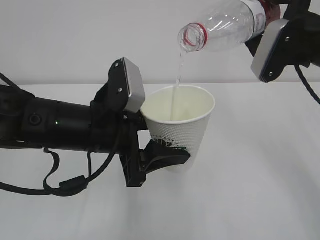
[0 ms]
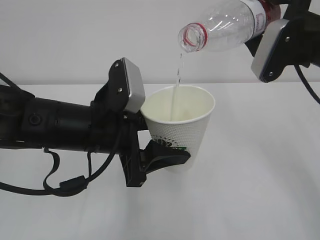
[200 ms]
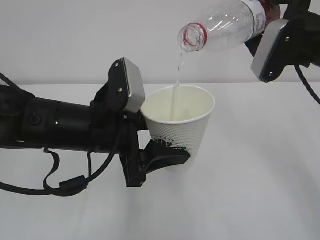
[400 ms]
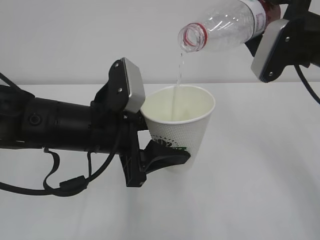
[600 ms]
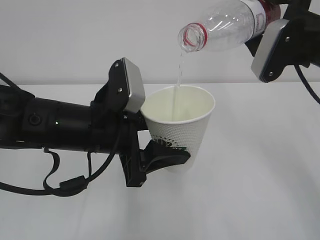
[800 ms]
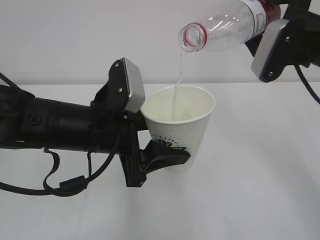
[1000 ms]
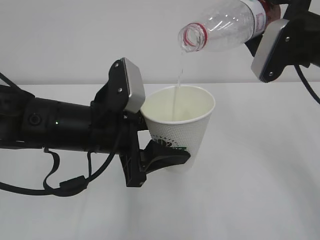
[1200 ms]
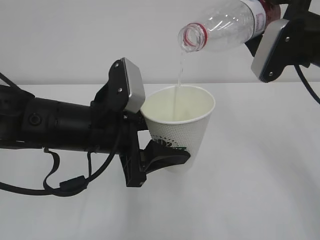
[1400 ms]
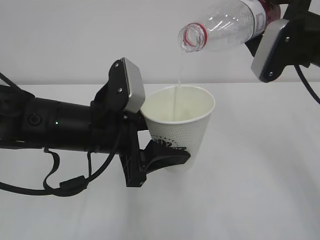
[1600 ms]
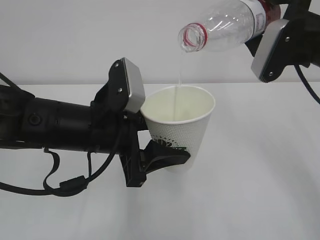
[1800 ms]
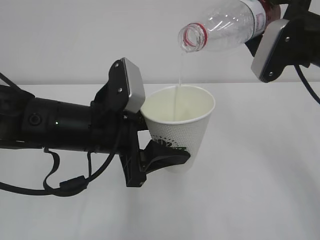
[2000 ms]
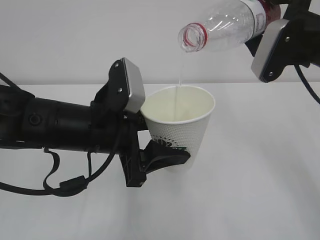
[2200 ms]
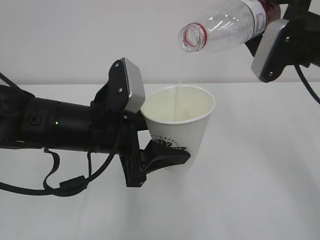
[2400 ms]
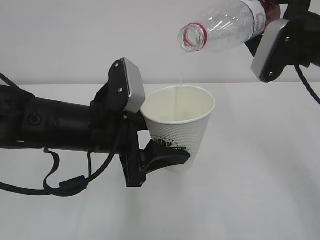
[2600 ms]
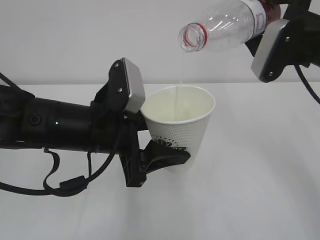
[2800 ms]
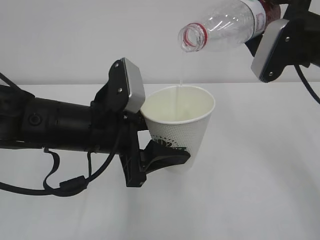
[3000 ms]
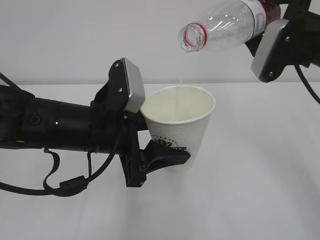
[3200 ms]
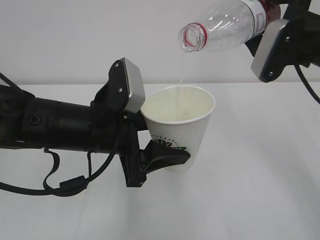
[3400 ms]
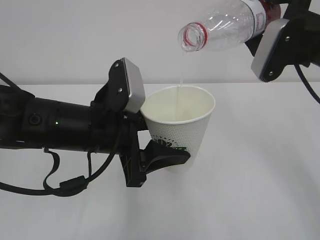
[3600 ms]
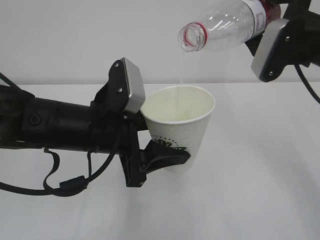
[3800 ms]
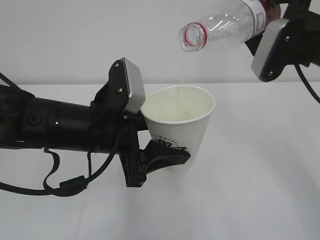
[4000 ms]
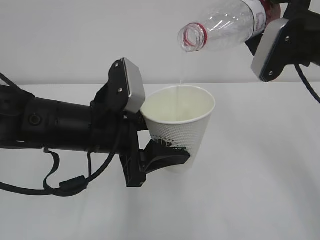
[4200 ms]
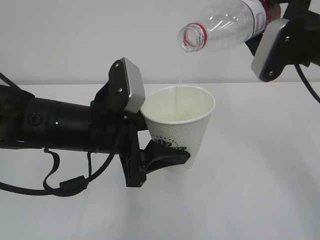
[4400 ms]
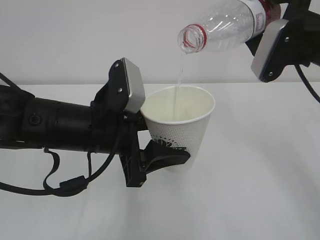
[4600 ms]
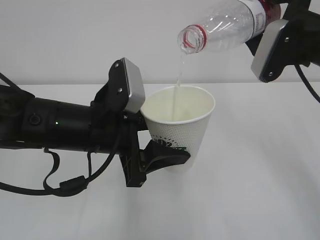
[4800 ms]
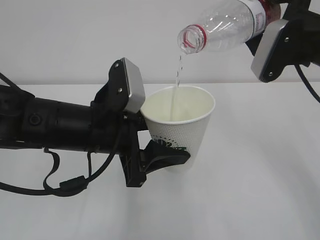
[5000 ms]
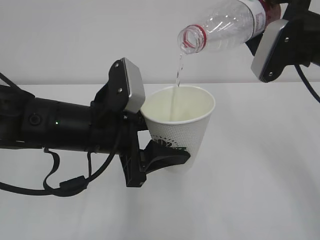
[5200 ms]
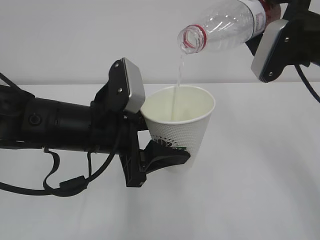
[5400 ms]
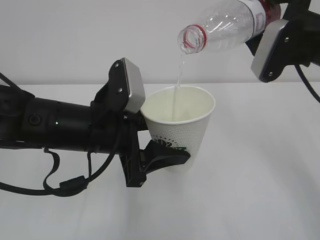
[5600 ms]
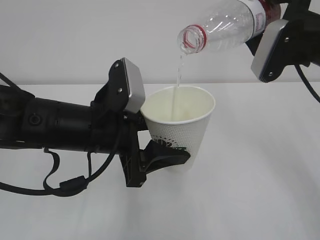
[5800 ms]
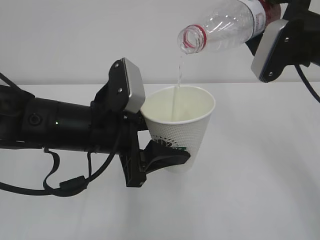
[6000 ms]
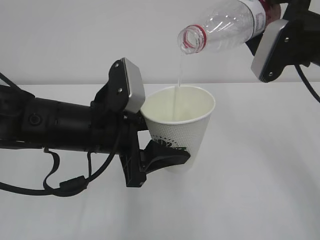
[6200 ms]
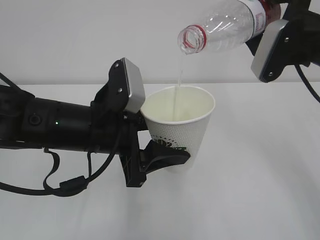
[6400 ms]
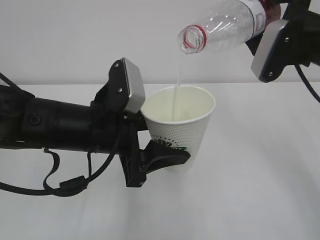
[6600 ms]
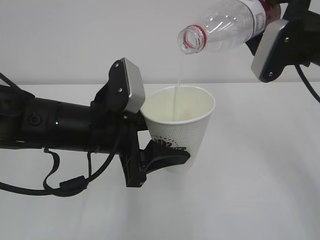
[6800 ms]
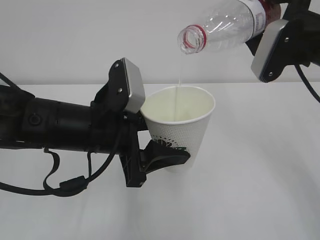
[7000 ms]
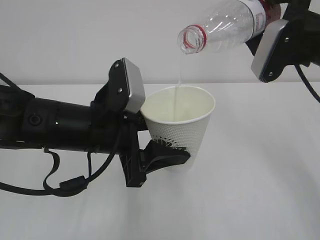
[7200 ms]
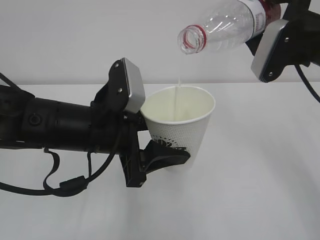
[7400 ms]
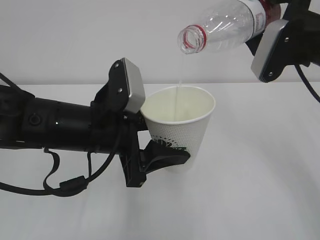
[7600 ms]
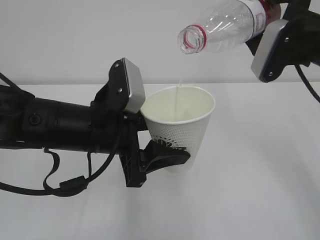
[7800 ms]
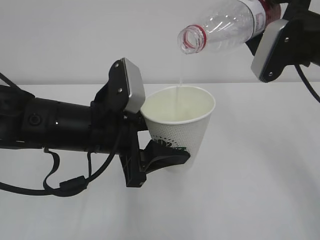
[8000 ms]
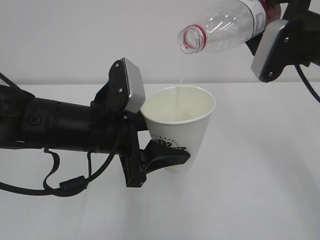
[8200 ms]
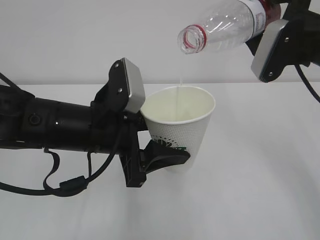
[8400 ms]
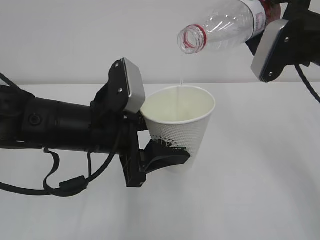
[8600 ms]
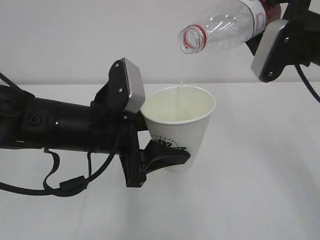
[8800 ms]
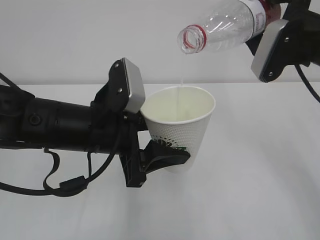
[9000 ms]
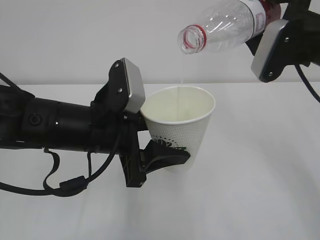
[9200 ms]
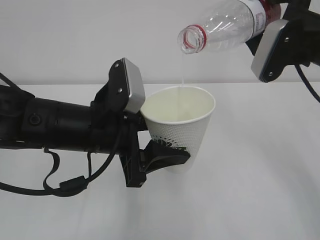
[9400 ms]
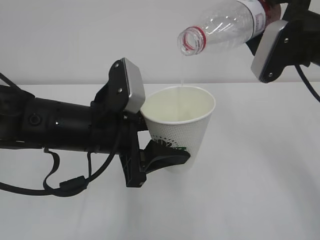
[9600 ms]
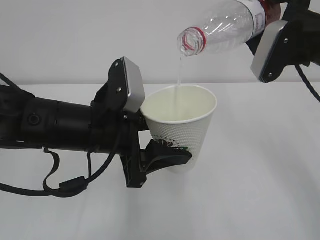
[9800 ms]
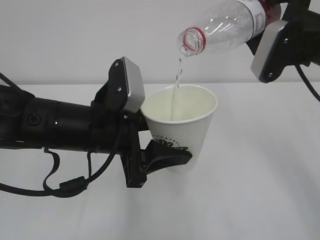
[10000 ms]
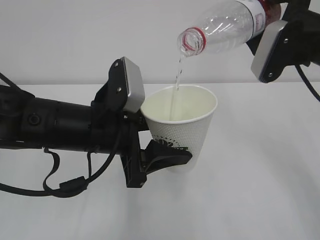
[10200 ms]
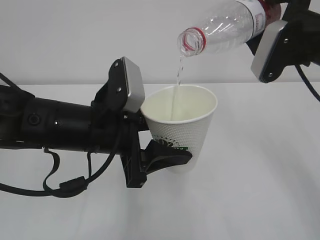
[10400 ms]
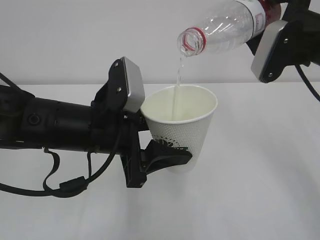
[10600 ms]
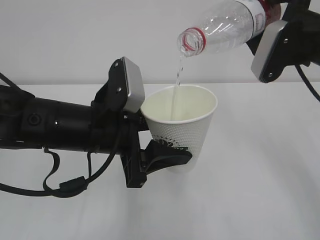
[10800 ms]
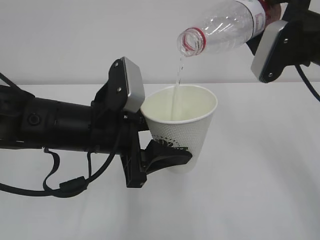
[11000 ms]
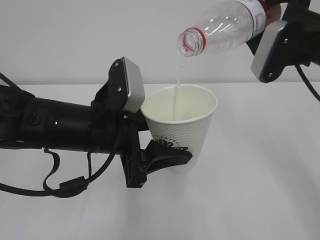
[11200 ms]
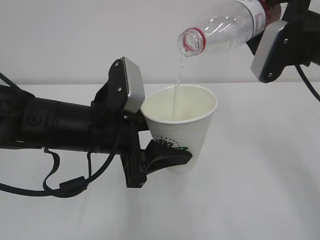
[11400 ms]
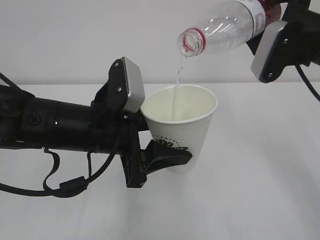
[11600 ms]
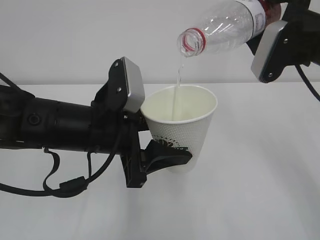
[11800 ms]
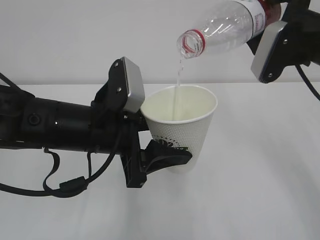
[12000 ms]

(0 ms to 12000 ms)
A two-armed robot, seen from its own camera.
0 ms - 12000 ms: Both grippers stay about where they are.

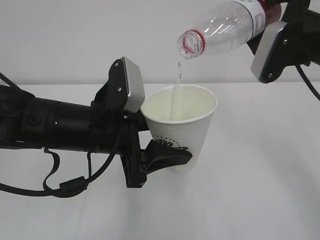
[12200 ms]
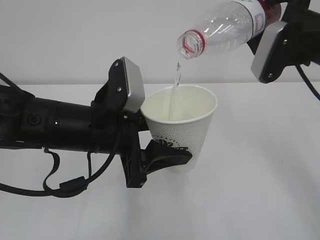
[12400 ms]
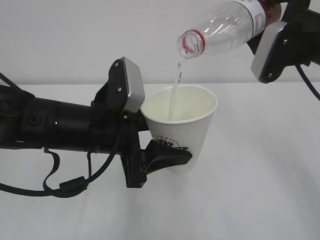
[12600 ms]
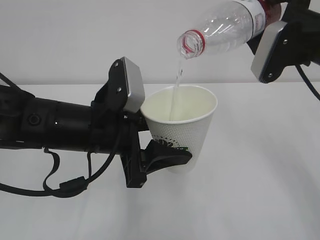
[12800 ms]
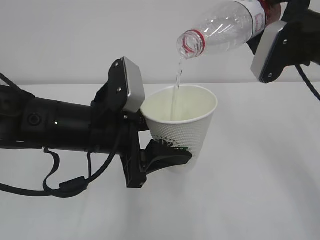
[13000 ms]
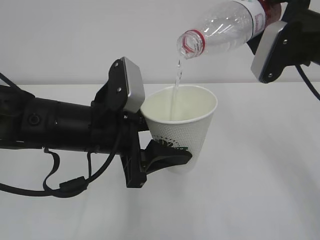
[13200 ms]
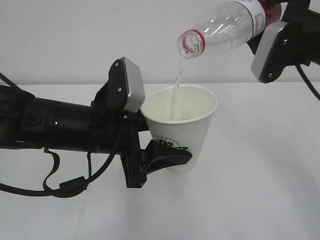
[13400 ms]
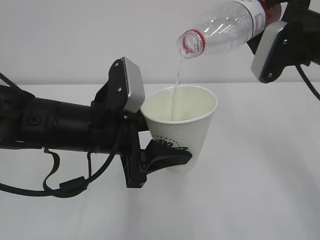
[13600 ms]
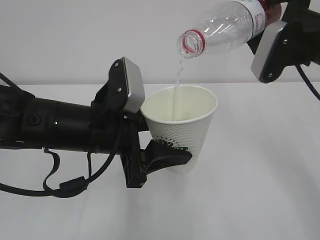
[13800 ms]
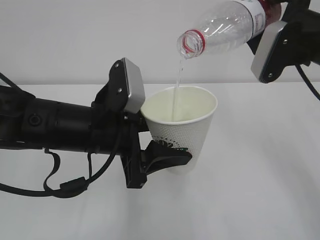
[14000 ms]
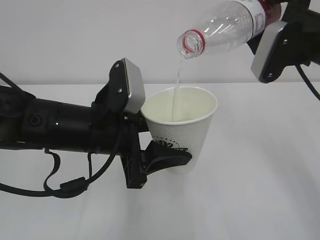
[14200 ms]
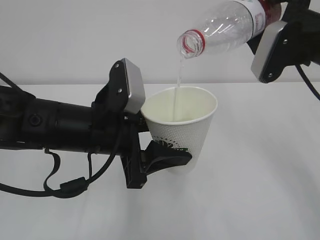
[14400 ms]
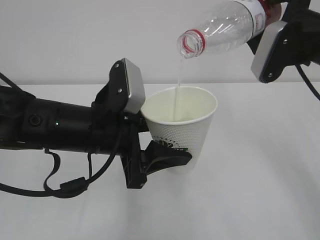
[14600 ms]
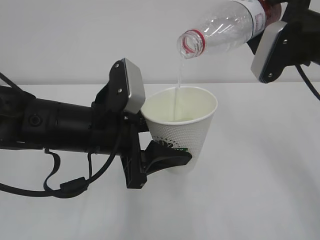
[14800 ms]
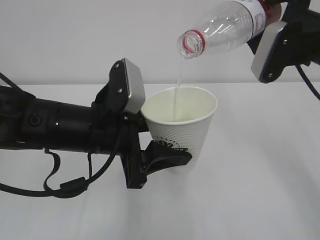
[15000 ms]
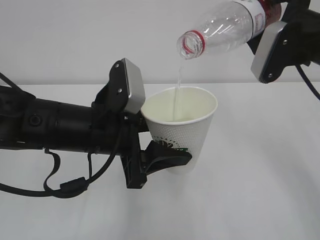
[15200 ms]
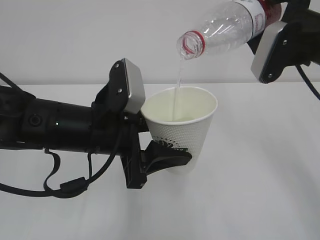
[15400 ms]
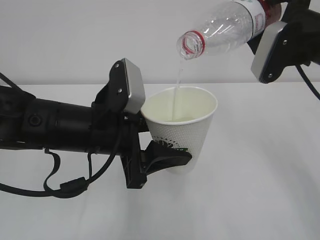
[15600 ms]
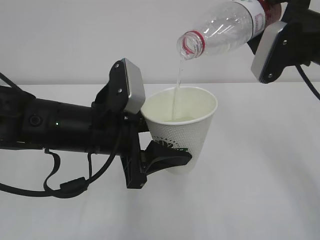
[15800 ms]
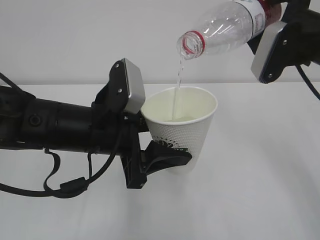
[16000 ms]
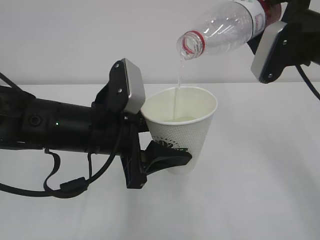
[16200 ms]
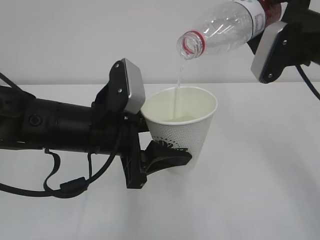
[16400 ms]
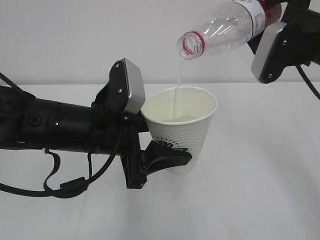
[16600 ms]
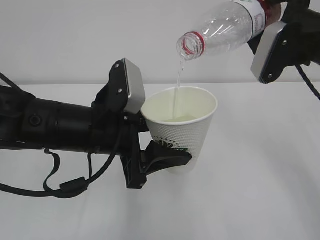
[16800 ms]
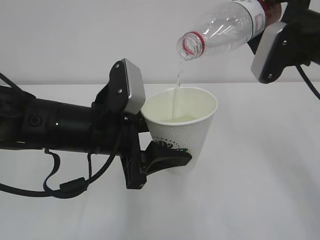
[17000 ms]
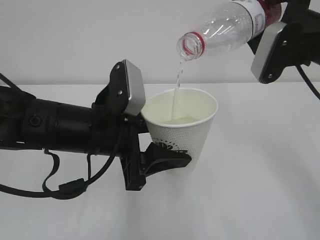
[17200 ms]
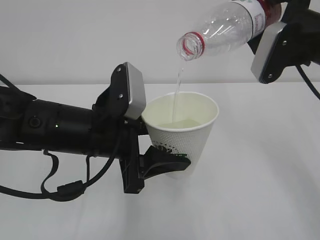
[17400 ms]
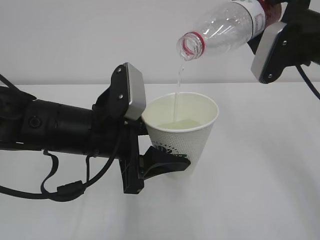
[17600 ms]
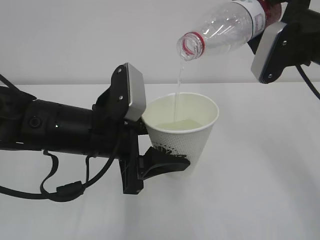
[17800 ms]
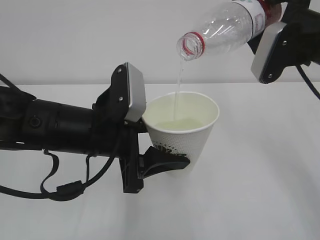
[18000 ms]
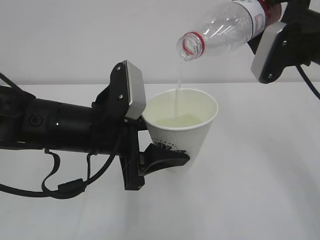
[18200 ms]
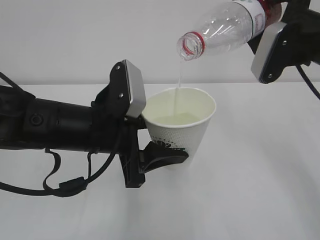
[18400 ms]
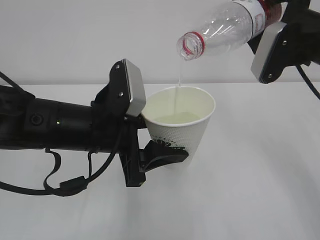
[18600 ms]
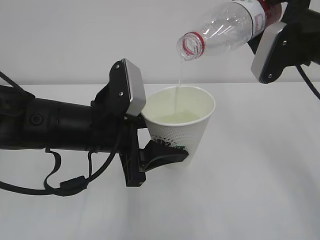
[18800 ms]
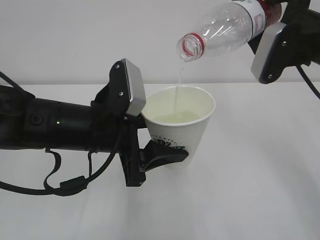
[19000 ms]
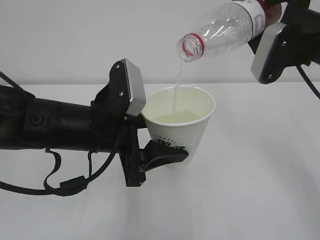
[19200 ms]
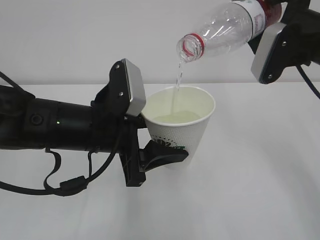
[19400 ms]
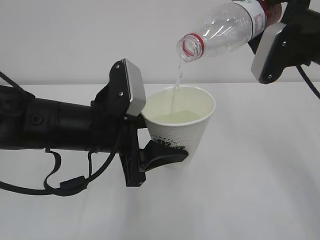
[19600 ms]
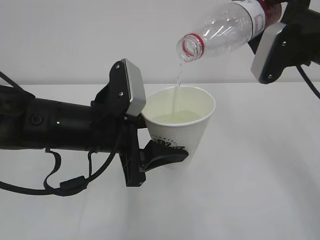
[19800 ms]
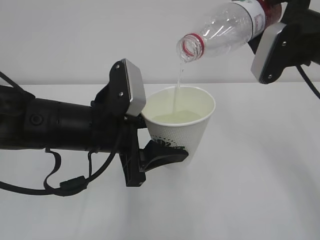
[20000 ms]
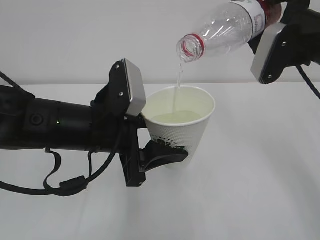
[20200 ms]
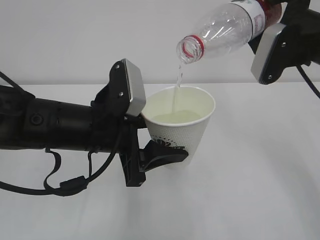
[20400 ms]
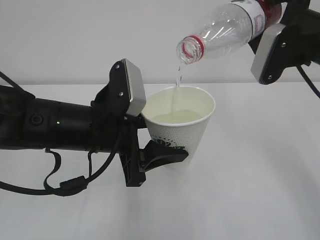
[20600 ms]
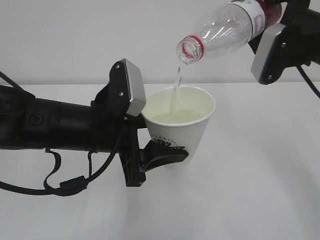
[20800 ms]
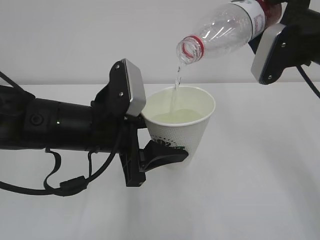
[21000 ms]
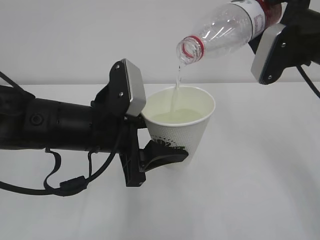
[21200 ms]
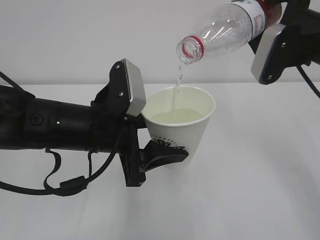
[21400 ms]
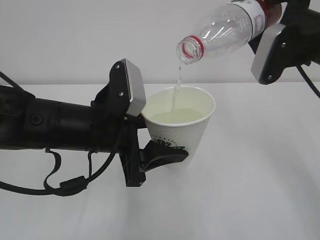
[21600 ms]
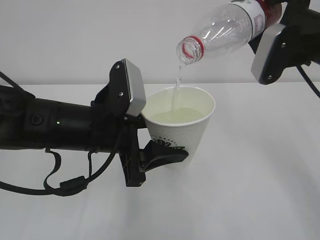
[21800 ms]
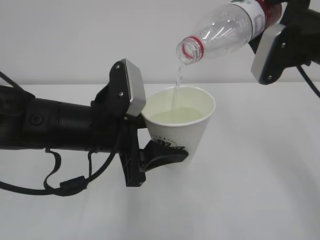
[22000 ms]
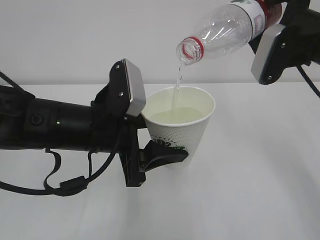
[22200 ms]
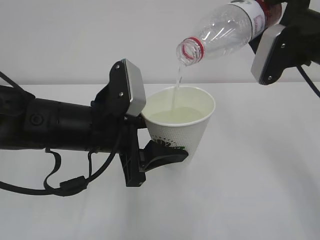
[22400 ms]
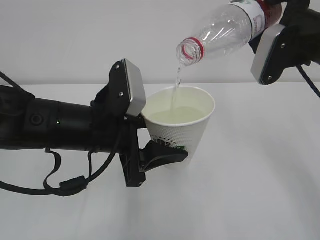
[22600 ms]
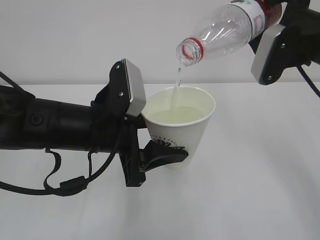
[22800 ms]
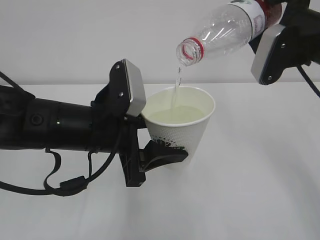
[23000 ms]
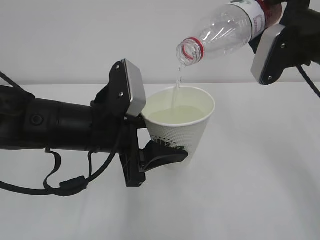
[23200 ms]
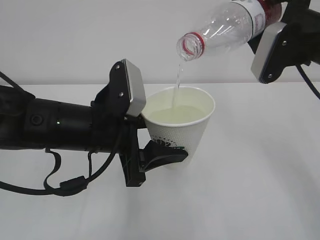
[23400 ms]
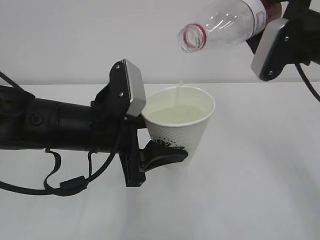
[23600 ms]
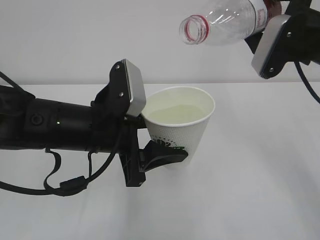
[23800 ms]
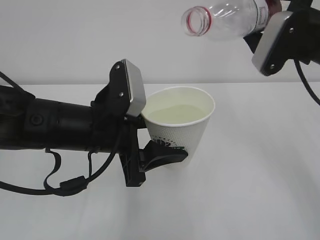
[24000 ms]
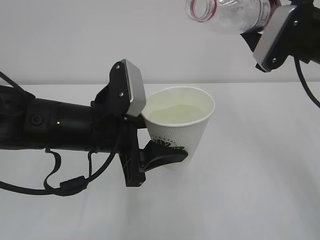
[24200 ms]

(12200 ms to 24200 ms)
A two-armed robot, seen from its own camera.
12200 ms - 16600 ms: Both grippers stay put.
16600 ms - 18200 ms: The grippers stay close to where they were, moving slightly.
18200 ms - 22600 ms: The two grippers keep their place.
22600 ms - 24200 ms: The grippers make only small movements.
